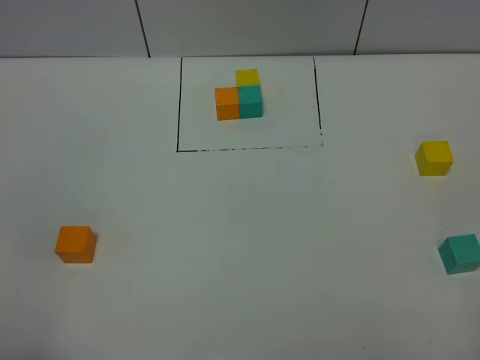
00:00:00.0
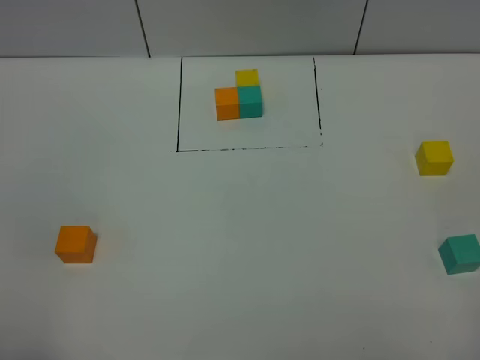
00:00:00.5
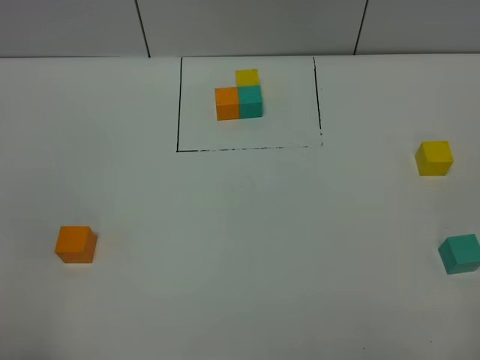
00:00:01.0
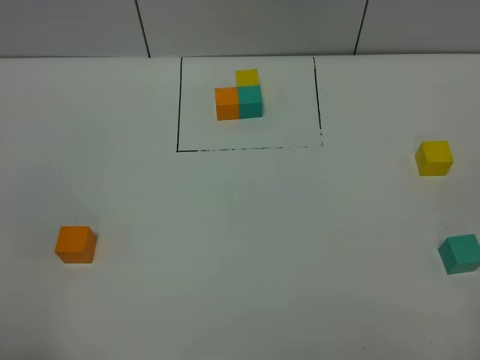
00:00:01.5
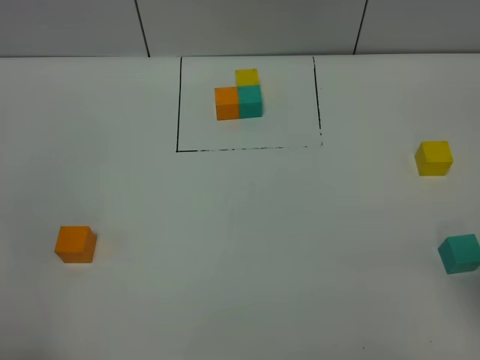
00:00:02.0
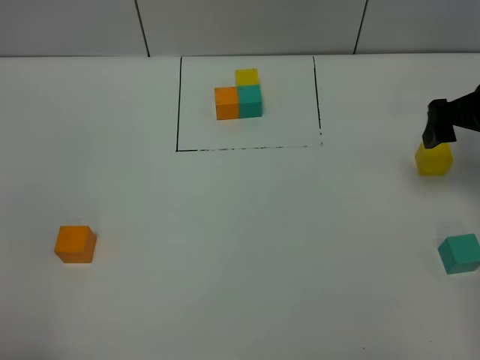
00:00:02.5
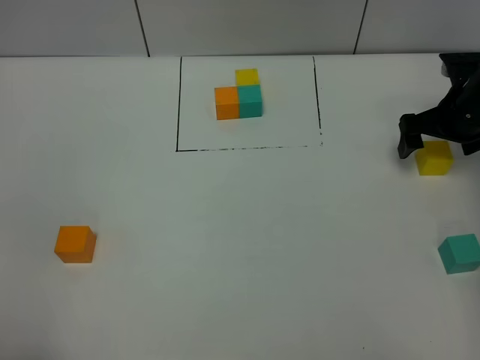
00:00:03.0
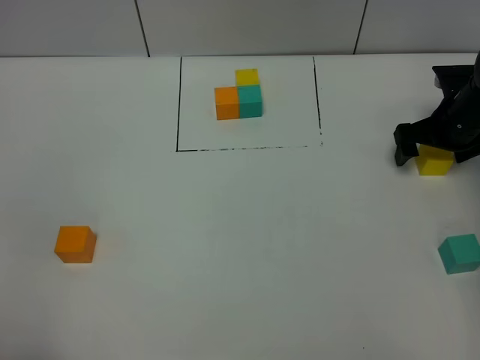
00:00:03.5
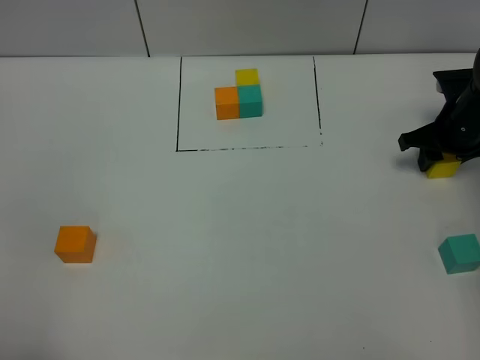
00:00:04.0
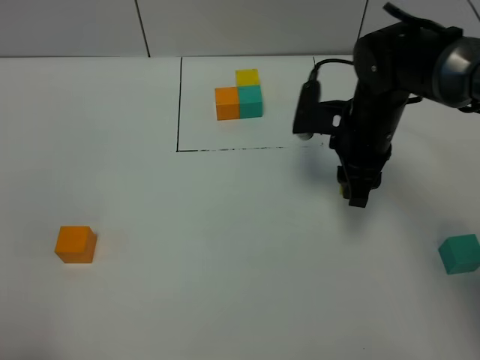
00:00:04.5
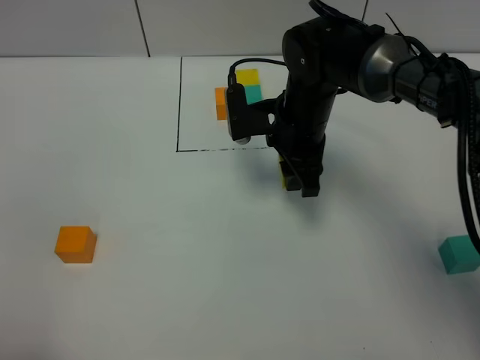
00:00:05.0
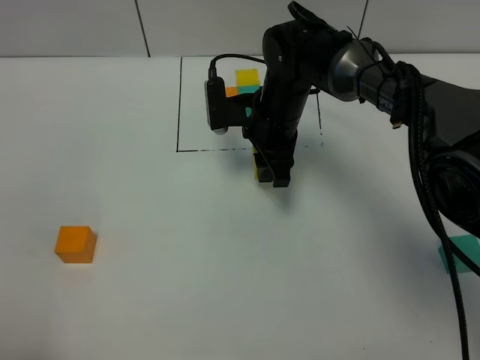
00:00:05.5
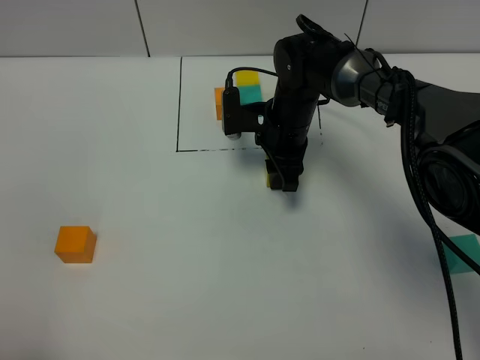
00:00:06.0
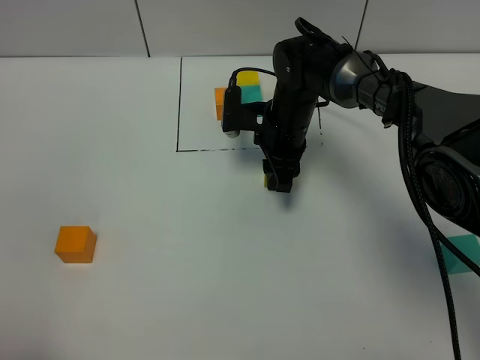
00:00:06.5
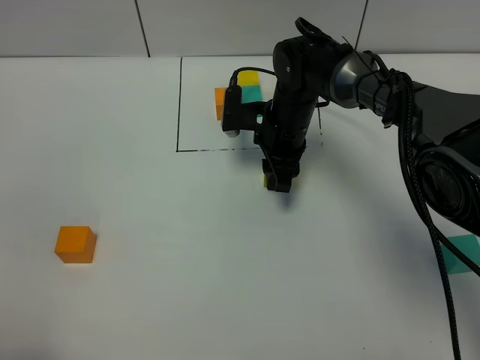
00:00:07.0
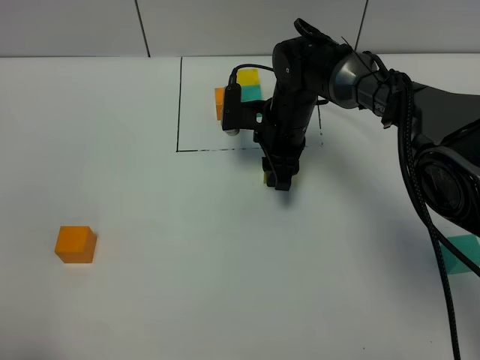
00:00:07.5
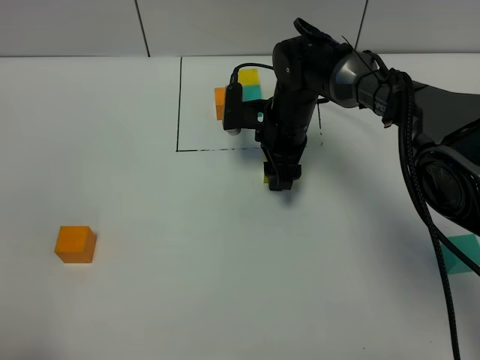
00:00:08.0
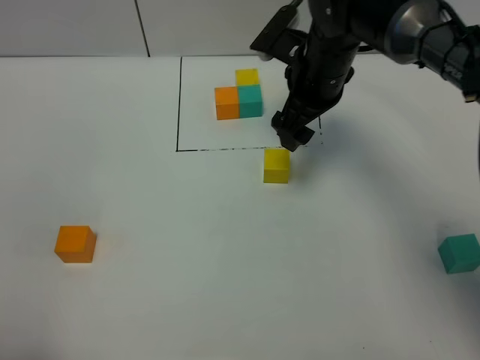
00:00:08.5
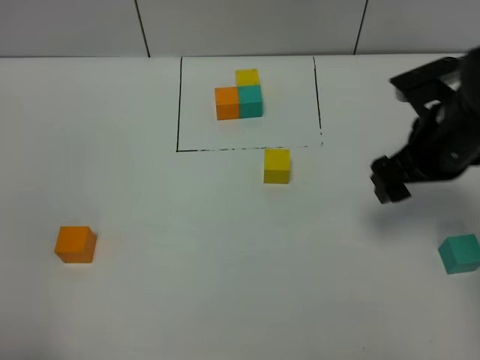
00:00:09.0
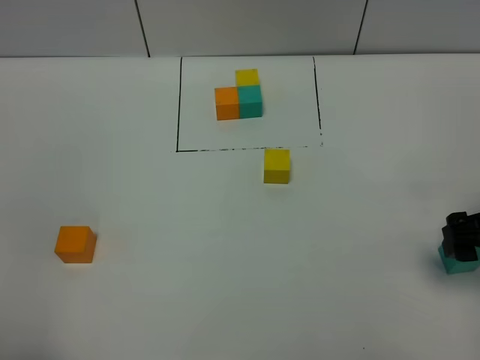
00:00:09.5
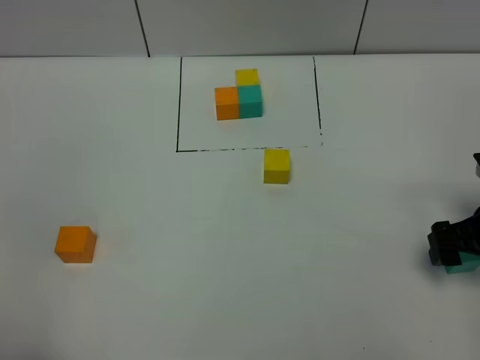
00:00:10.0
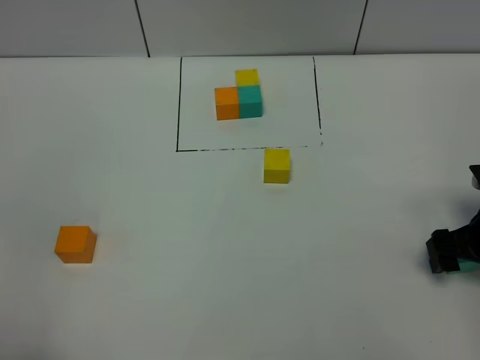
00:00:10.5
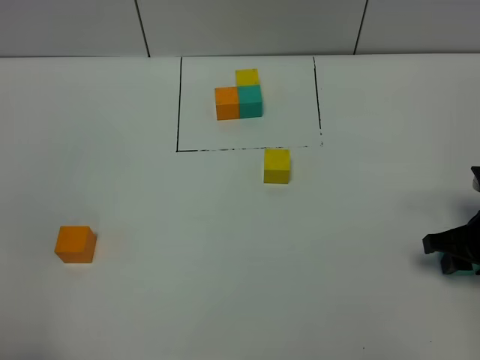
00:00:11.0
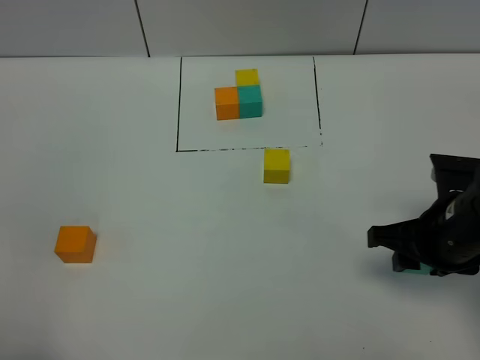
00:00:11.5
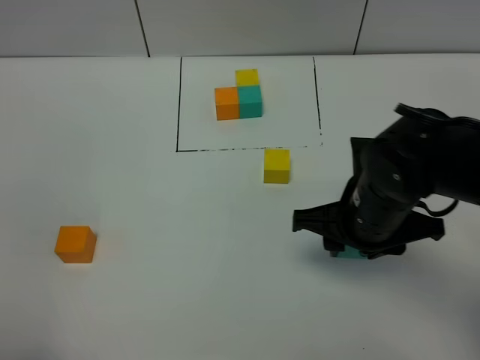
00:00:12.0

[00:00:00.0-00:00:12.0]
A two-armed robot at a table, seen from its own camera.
Task of the whole recording: According to the building block template in front, assemble the scattered blocks together.
Step, 00:00:00.0 to 00:00:08.0: Put the yellow build block in the center of the table.
00:00:02.0 to 00:00:04.0: The right gripper travels forward and downward by some 35 cm, and closes.
00:00:04.0 to 00:00:06.0: The right gripper moves to the left, roughly 25 cm.
00:00:06.0 to 00:00:08.0: The right gripper opens up.
00:00:08.0 to 00:00:10.0: The right gripper heads to the right and backward, covering approximately 30 cm, and opens its fingers.
00:00:10.0 to 00:00:12.0: The right gripper travels to the left by some 20 cm, and closes up.

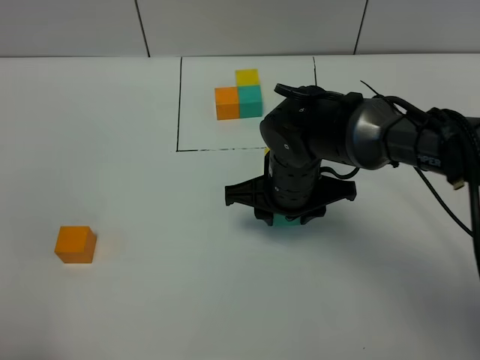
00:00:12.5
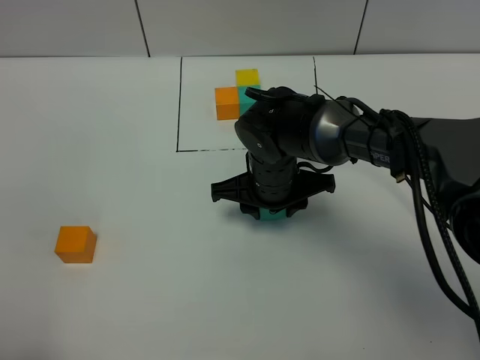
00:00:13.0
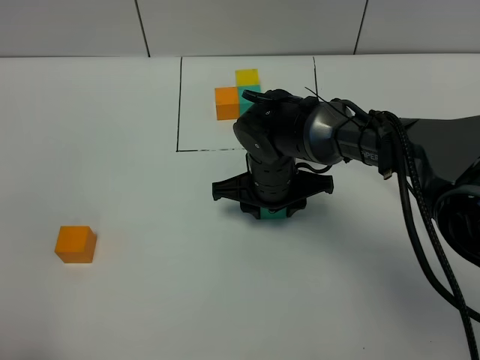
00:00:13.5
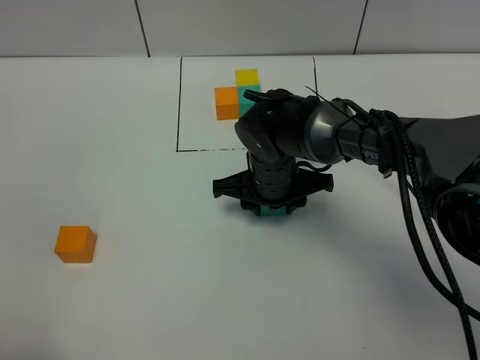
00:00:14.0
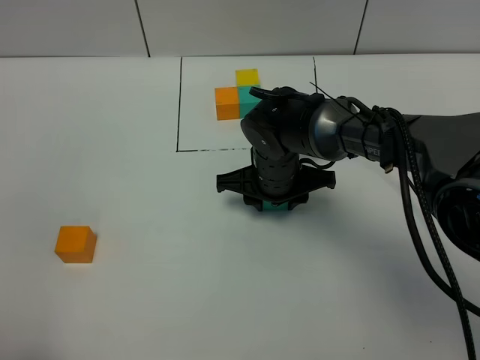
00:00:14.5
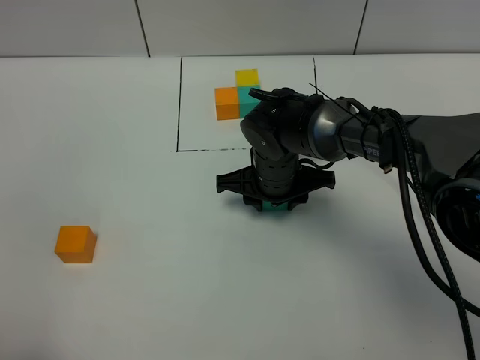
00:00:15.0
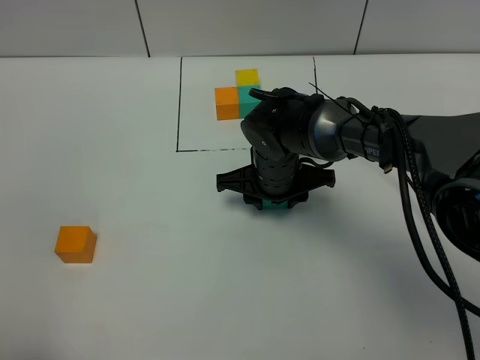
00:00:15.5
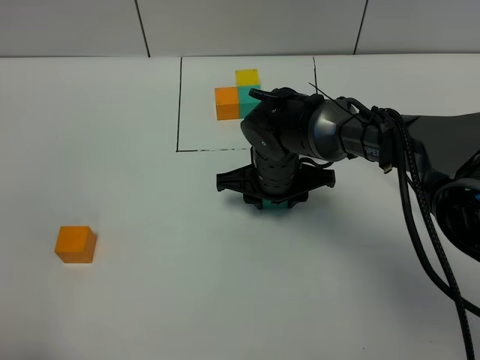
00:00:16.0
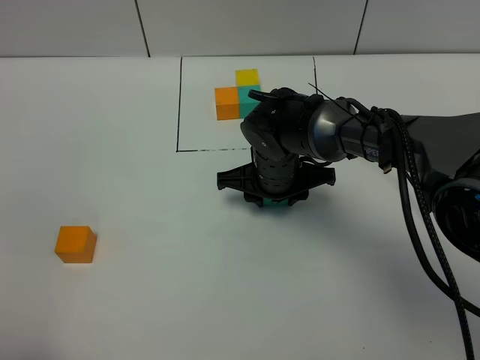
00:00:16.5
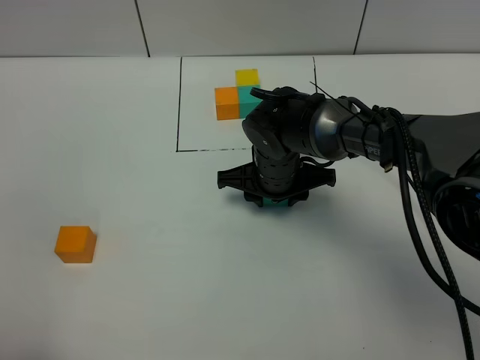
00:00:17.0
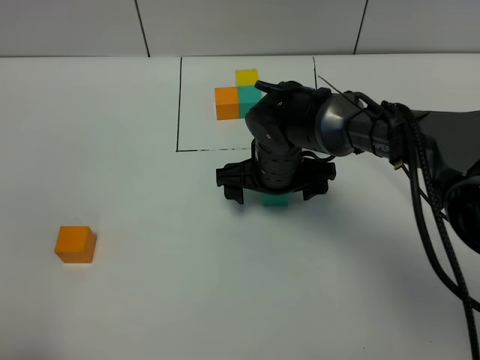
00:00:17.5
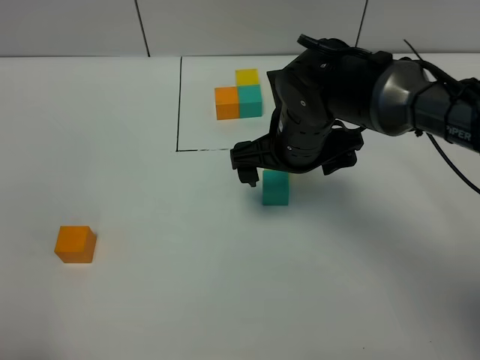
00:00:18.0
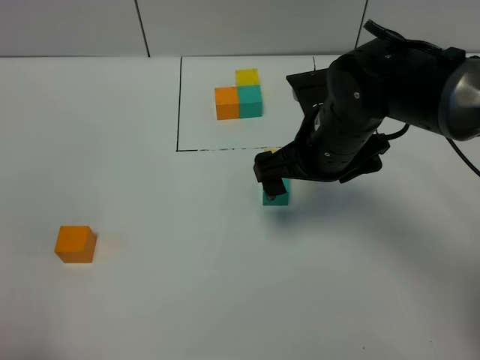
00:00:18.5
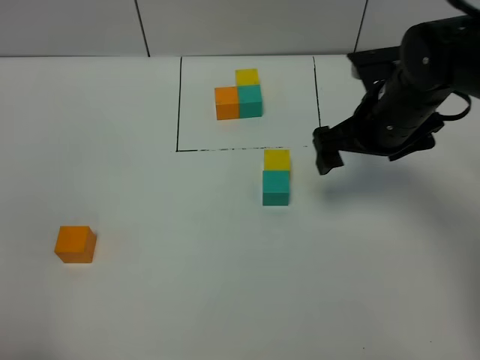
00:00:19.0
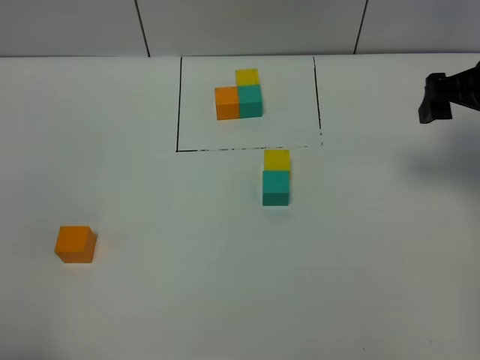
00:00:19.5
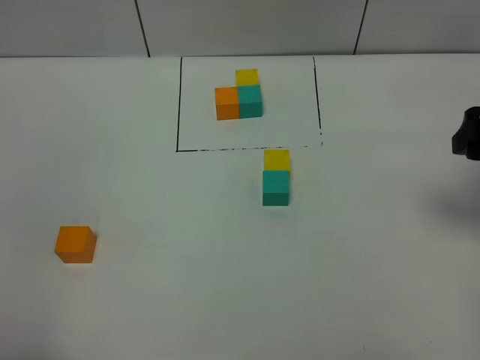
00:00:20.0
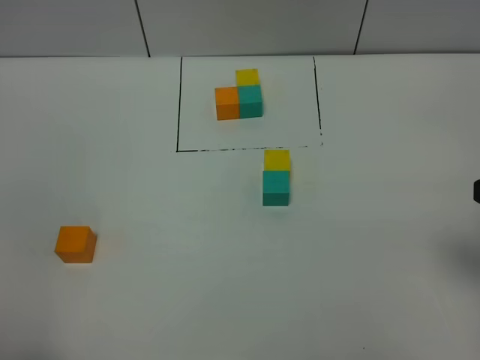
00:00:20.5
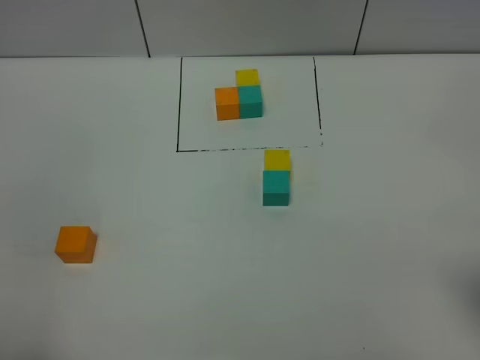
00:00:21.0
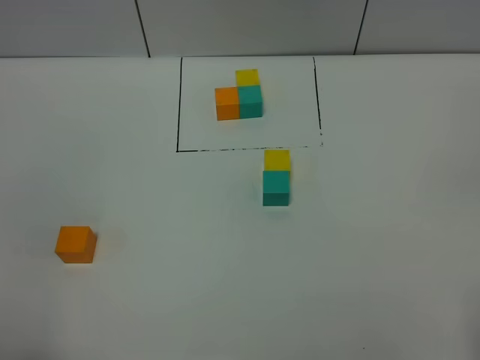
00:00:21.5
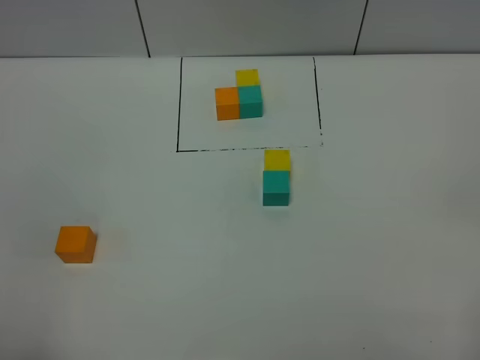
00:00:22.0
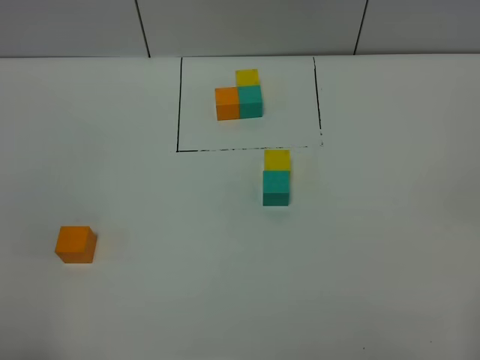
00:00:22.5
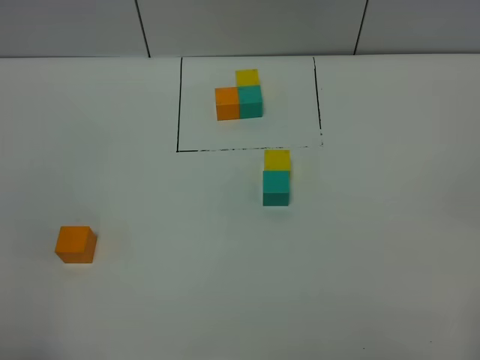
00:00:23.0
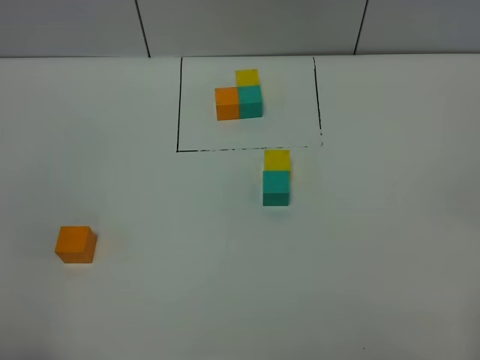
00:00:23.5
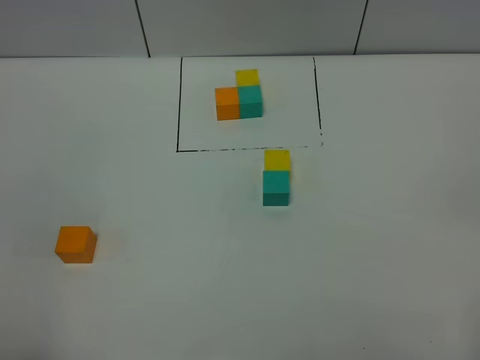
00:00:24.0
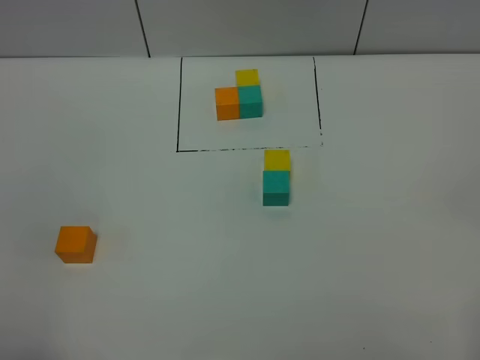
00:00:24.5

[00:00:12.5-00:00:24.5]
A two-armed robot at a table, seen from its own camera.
Task of the whole recording: According to the building block template in front, assemble the scattered blocks together.
Step, 00:00:12.5 to 00:00:17.0: Put the green build block on the right of the yellow build block.
00:00:12.5 to 00:00:14.5: The right gripper ends up roughly 5 cm from where it was.
00:00:14.5 to 00:00:16.5: The two grippers keep their place.
00:00:16.5 to 00:00:18.5: The right gripper is displaced upward and to the right by roughly 10 cm, and opens.
00:00:18.5 to 00:00:20.5: The right gripper is displaced to the right and backward by roughly 25 cm.
00:00:22.5 to 00:00:24.5: Neither gripper changes place.

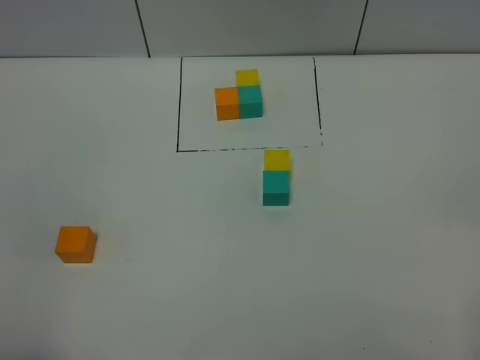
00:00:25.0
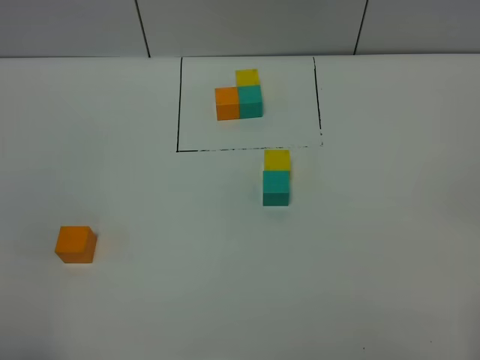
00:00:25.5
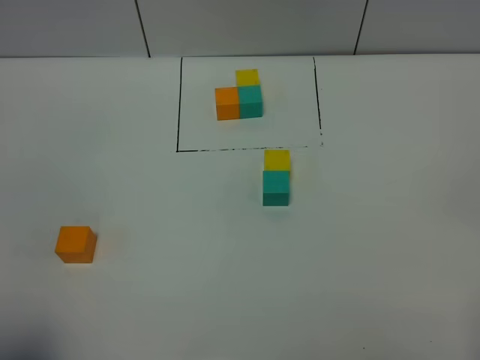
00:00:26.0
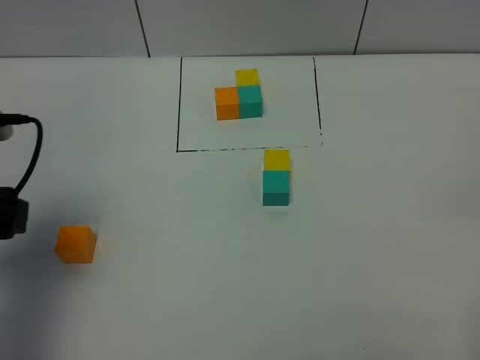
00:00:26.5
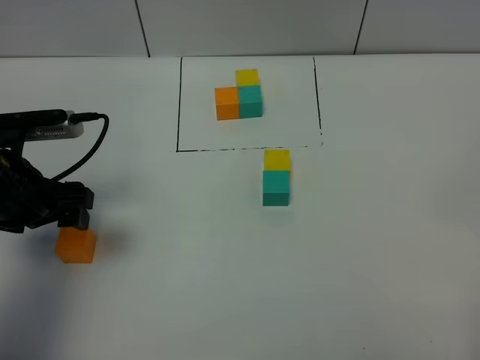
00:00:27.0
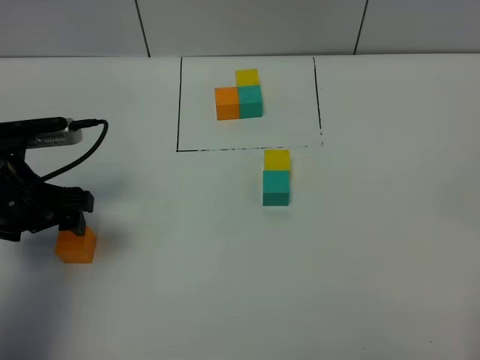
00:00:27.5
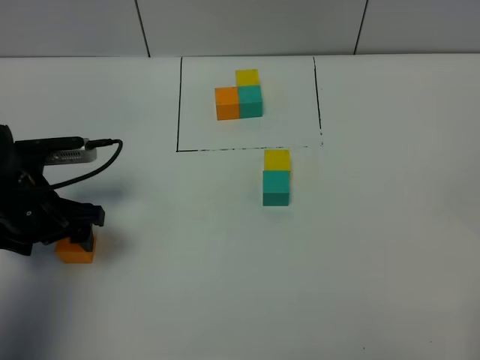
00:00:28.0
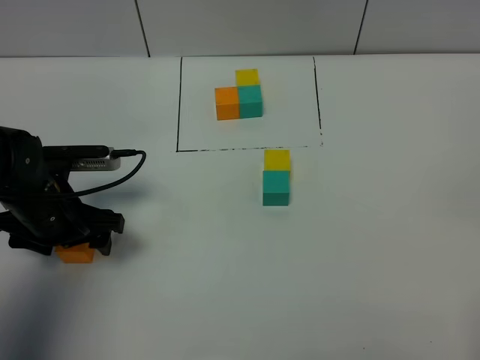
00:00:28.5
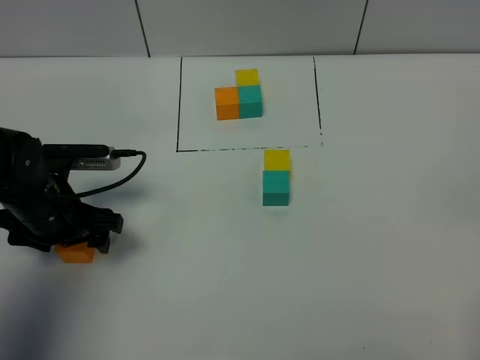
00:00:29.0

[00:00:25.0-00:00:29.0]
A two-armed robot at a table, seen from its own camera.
Task of the whole recording: According to the building block template in front, assemble the scattered blocks together.
00:00:25.0 to 00:00:27.0: The left gripper travels forward by approximately 25 cm.
00:00:27.0 to 00:00:29.0: The left gripper goes roughly 5 cm downward.
